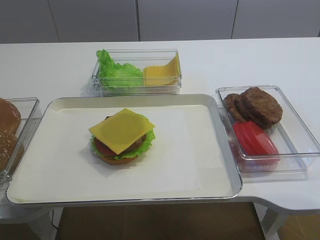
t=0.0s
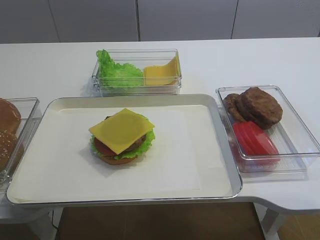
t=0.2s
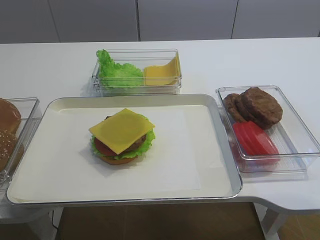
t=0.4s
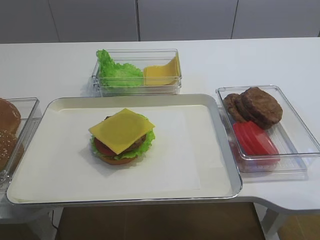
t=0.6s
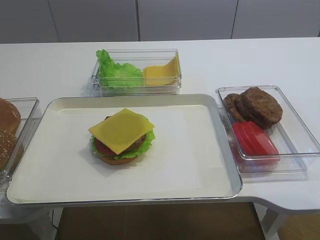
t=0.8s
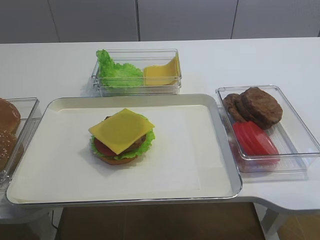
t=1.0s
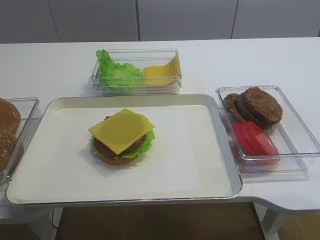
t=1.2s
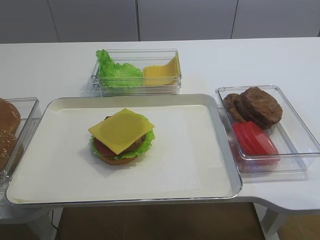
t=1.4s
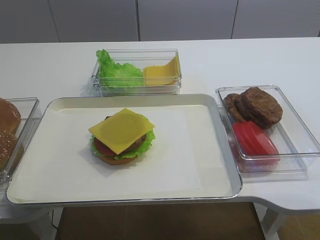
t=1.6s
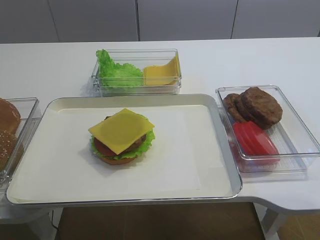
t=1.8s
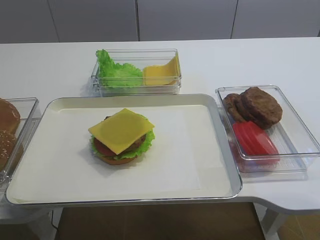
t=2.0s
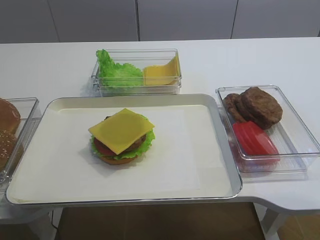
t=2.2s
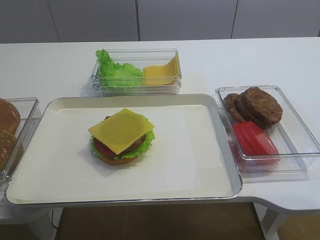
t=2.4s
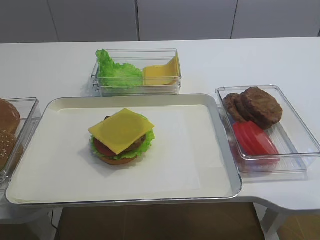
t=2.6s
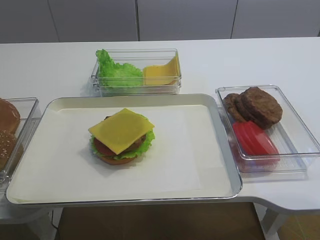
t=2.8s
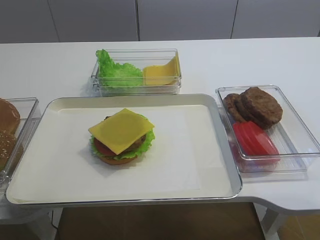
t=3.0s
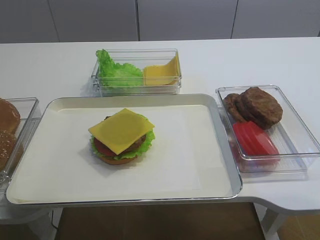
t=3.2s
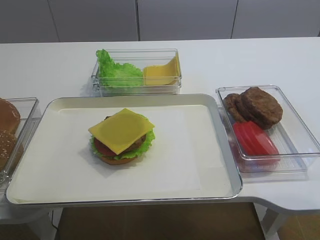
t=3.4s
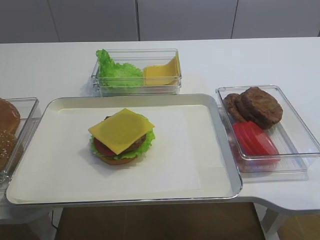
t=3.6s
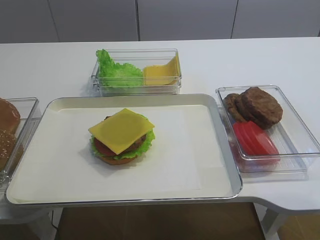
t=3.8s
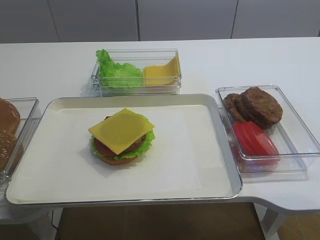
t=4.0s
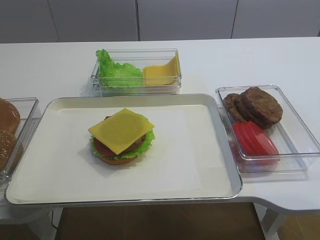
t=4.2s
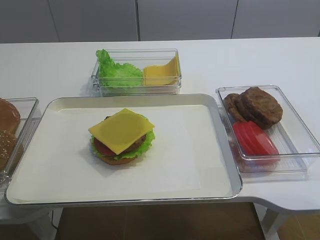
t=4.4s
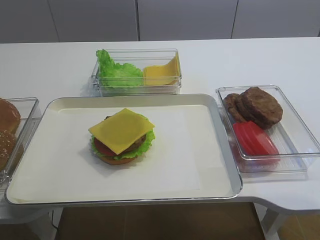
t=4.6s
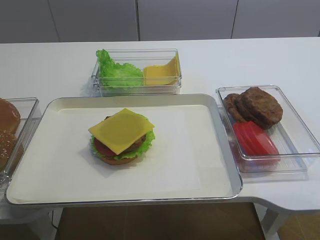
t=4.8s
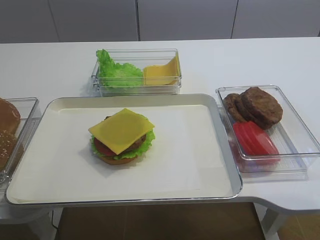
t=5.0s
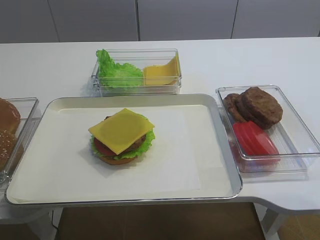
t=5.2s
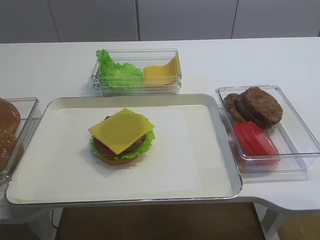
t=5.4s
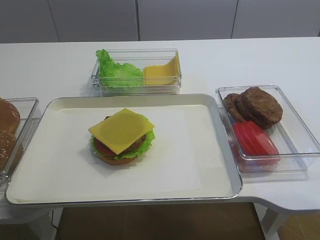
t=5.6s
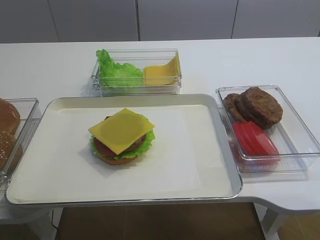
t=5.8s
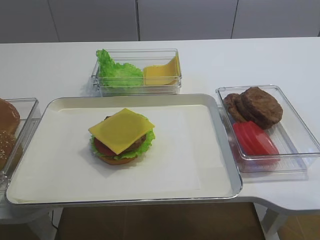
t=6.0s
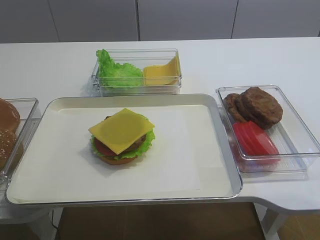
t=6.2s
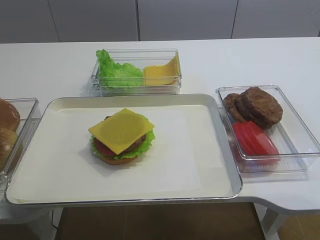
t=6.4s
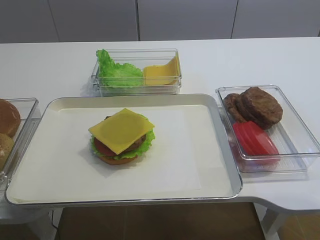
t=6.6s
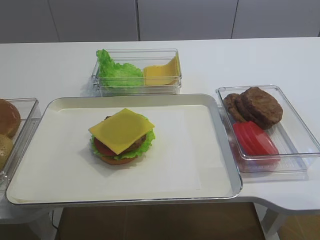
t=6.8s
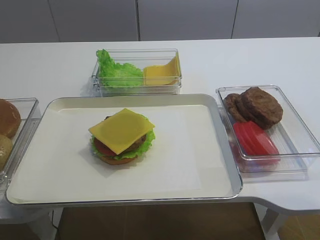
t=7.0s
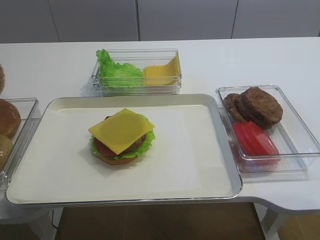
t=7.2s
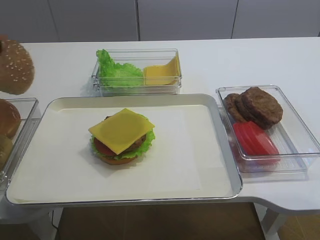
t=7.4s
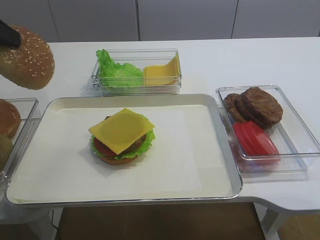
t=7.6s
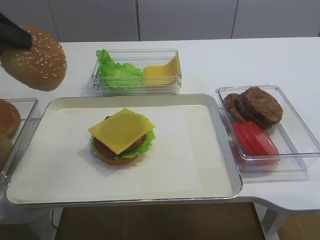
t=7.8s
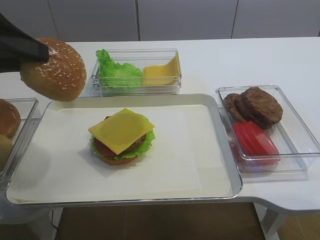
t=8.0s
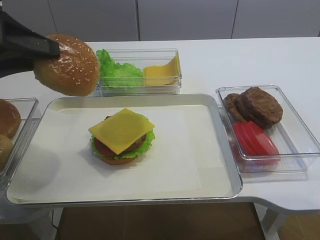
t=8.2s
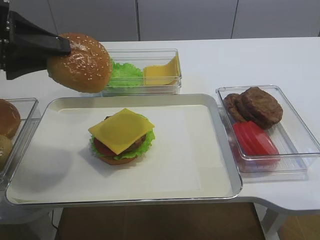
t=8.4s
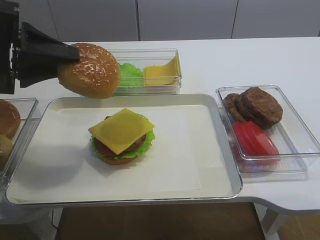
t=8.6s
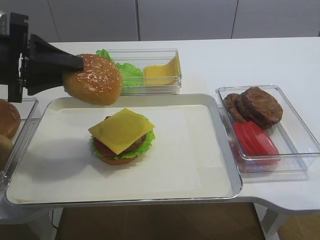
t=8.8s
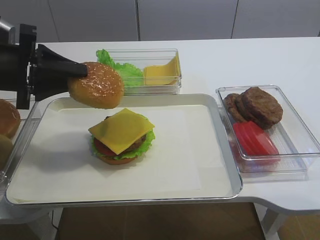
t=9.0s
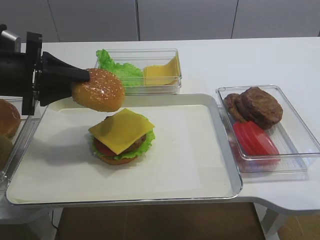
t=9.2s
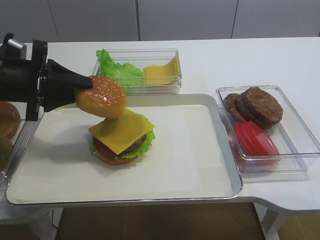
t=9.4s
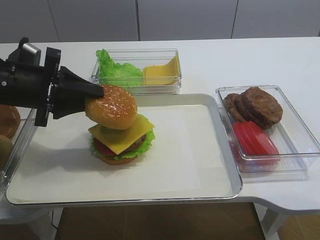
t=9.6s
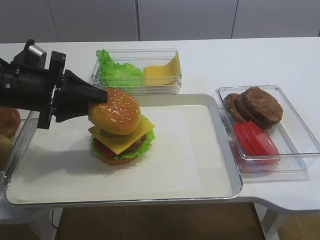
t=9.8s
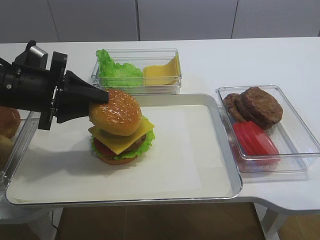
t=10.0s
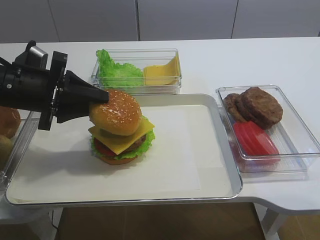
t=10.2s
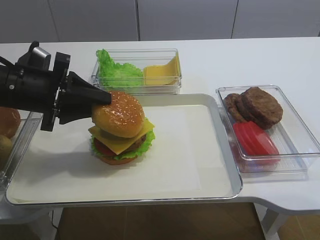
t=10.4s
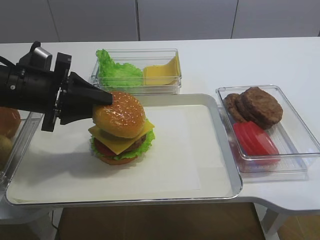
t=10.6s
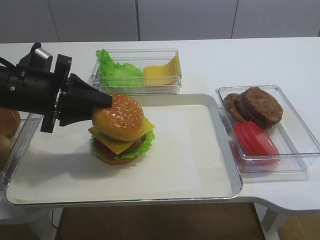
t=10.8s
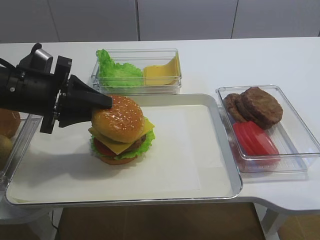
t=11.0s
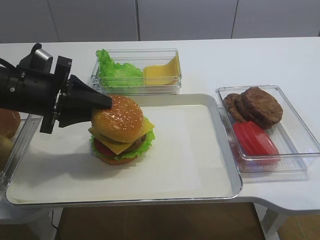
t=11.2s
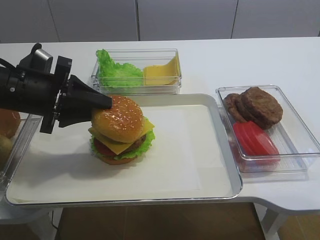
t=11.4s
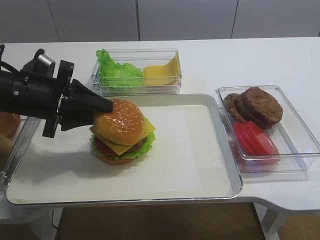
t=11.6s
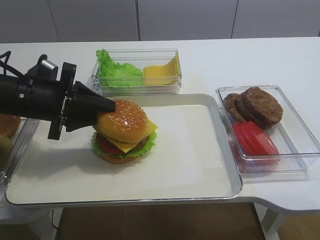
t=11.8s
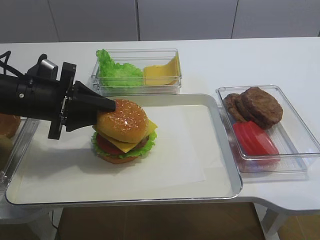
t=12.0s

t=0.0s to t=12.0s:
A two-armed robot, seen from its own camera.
Step, t=0.0s to t=7.4s: Pick up the hamburger lid with the left gripper.
t=6.0s to t=7.6s: The left gripper is displaced upward and to the right by roughly 15 cm.
t=7.6s to t=9.0s: The left gripper travels downward and forward by some 10 cm.
t=9.0s to t=10.4s: The grippers make only small movements.
t=10.4s to t=12.0s: There are only small adjustments of the grippers.

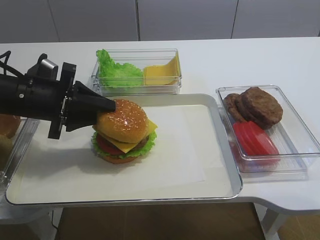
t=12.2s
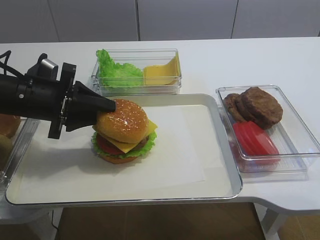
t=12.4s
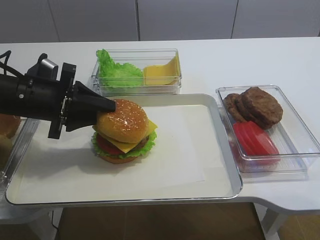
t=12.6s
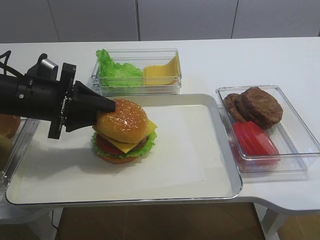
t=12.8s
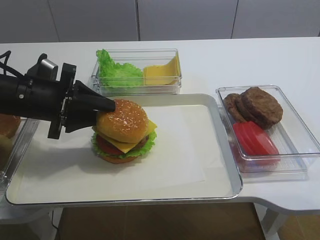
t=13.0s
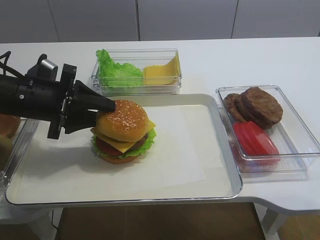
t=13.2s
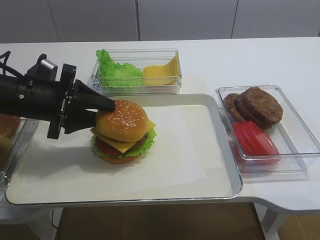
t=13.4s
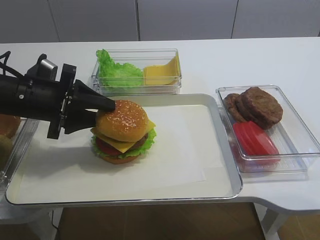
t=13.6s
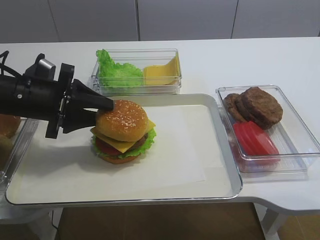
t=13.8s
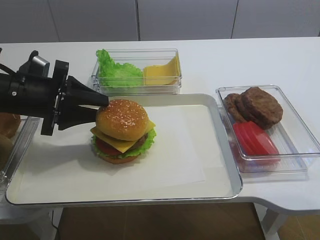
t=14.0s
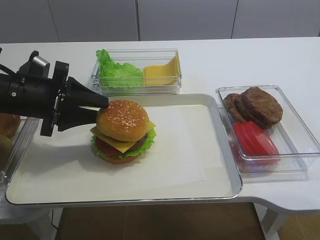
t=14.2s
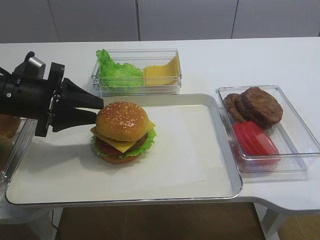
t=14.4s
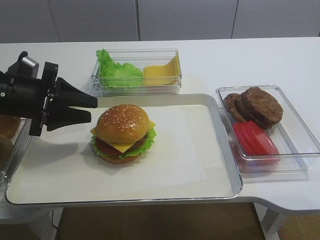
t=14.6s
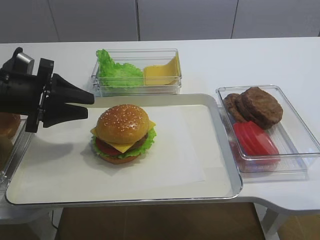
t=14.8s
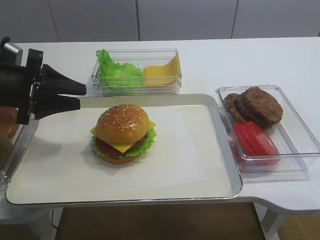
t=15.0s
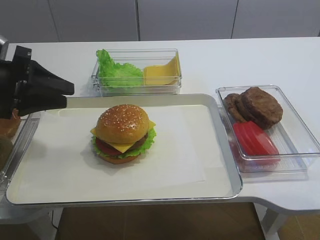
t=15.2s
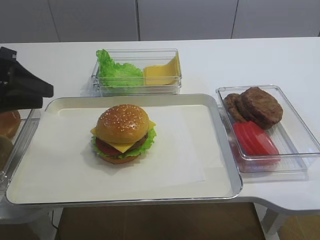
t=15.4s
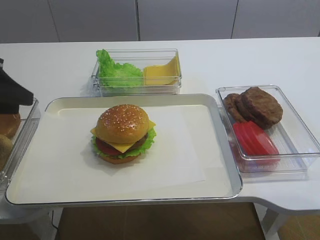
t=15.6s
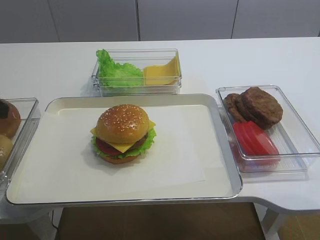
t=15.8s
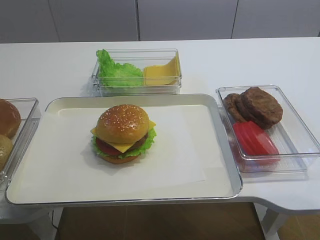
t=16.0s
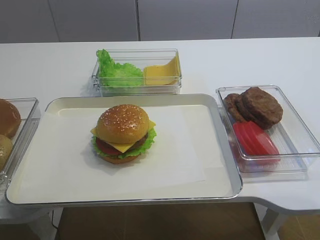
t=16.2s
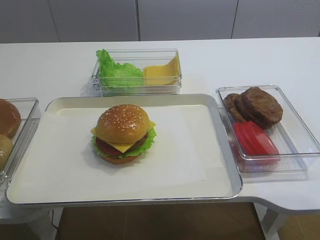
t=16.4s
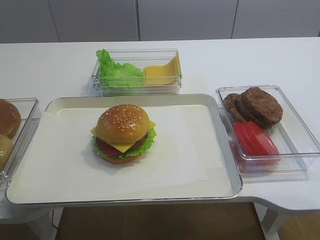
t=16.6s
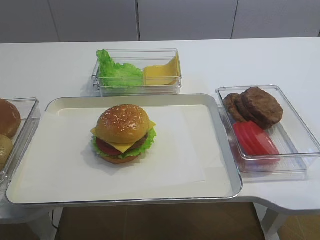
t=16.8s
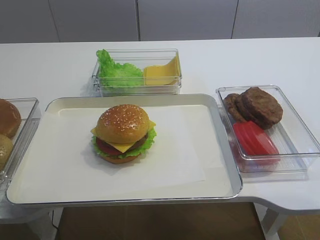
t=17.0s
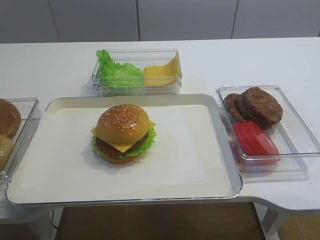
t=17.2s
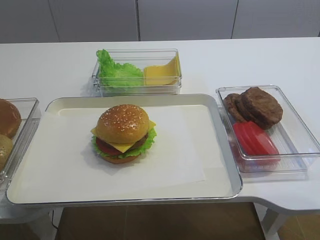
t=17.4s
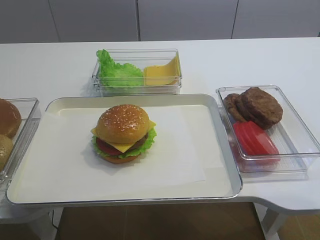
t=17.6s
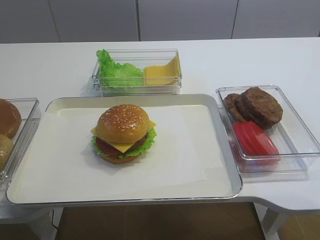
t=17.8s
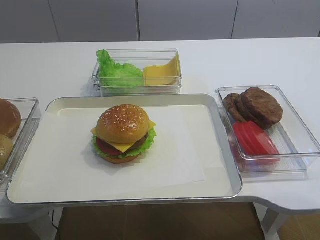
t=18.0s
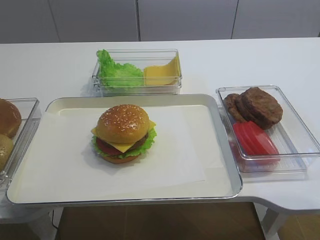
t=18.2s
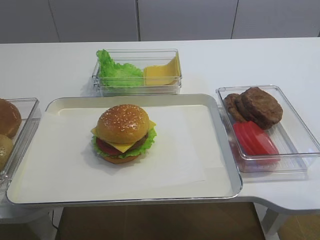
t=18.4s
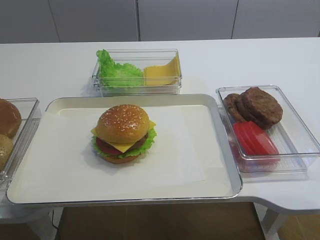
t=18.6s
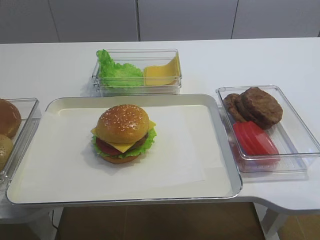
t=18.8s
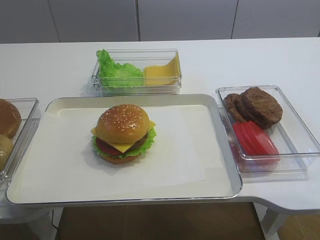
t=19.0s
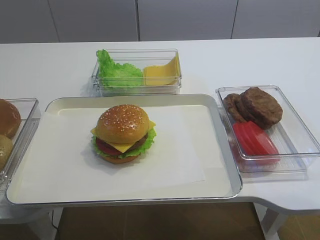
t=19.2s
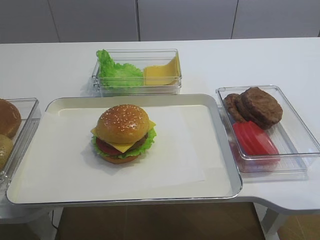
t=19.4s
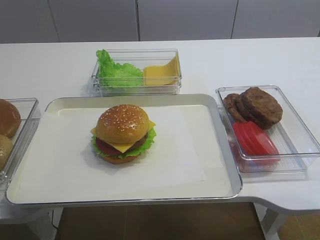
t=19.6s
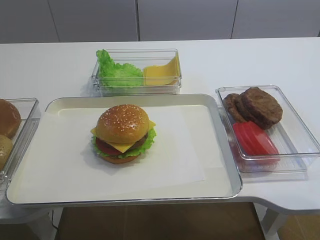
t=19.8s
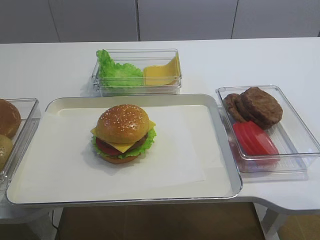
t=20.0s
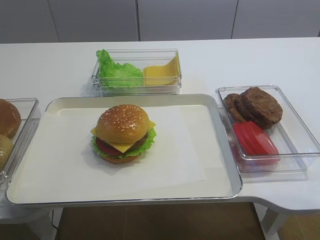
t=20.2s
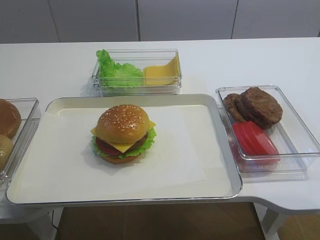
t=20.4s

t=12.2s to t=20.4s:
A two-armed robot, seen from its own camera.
Step, t=12.2s to t=15.0s: Place the hamburger lid on the cheese slice with the left gripper.
t=12.2s to t=13.8s: The left gripper opens.
t=13.8s to t=15.4s: The left gripper heads to the left and upward, covering approximately 10 cm.
t=15.4s to t=17.2s: The left gripper heads backward and upward, covering approximately 20 cm.
t=18.8s to t=20.4s: Both grippers stay about where they are.

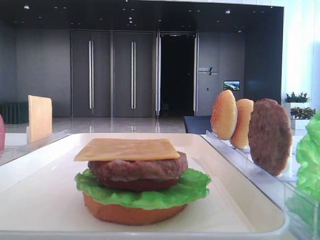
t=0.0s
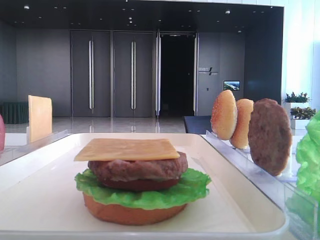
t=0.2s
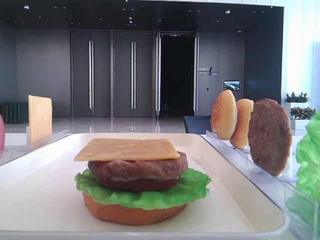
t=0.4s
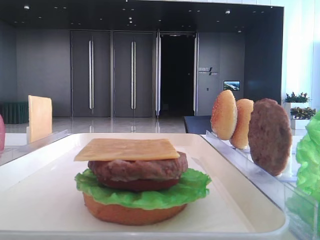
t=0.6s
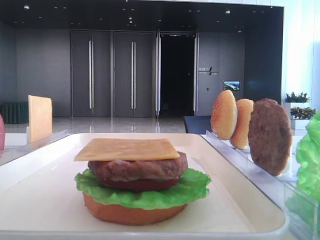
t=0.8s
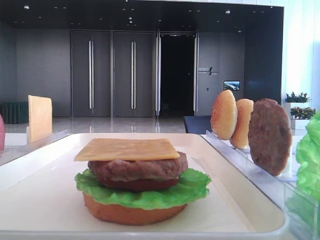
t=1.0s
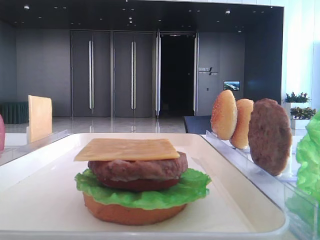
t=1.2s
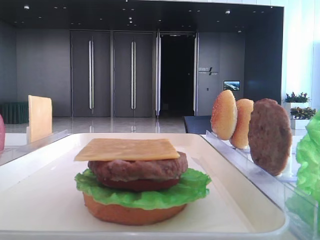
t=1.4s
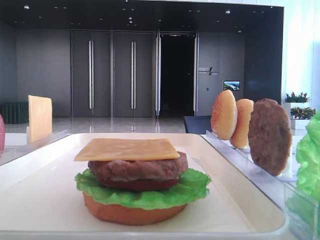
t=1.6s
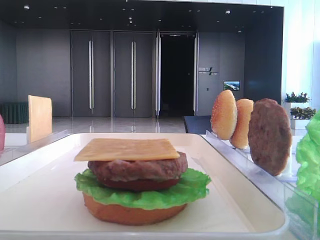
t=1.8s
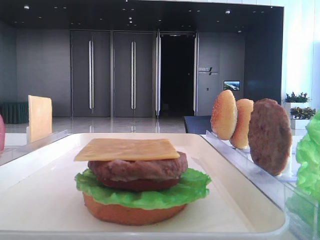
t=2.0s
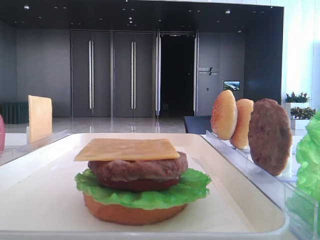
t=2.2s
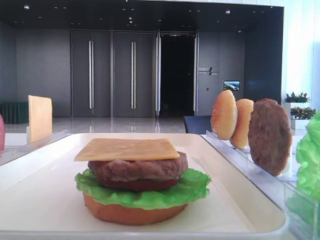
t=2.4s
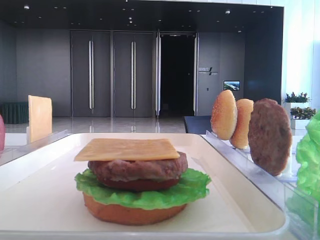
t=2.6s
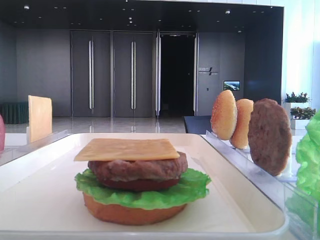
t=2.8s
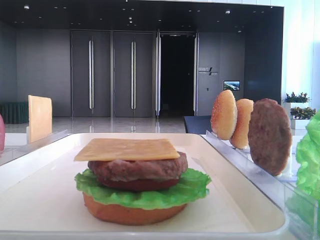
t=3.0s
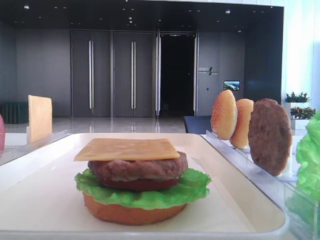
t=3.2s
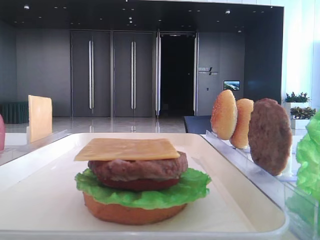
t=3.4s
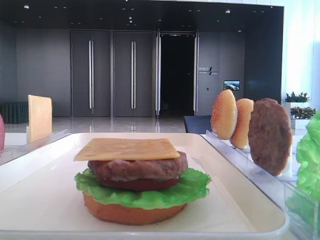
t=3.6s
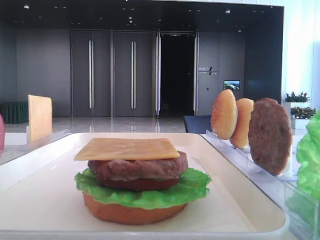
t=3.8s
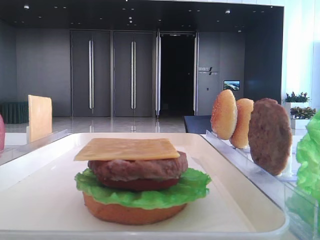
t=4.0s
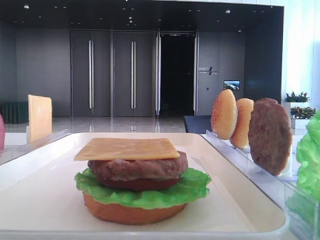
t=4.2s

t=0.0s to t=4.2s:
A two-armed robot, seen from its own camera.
t=2.8s to t=4.2s: The right gripper shifts roughly 30 cm forward.
